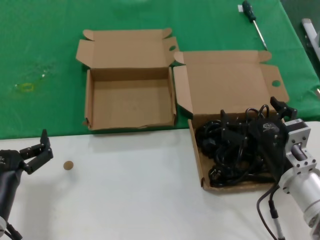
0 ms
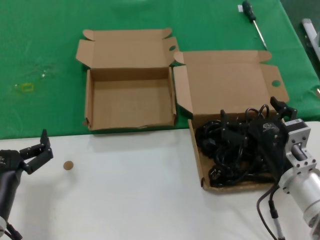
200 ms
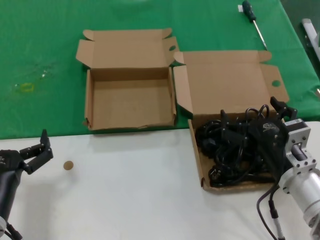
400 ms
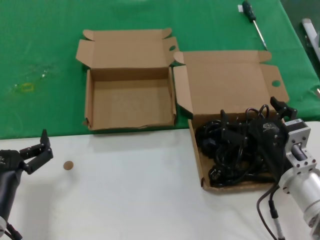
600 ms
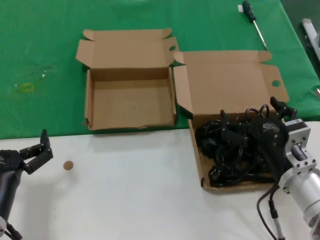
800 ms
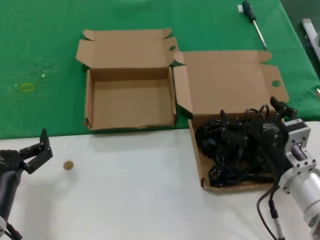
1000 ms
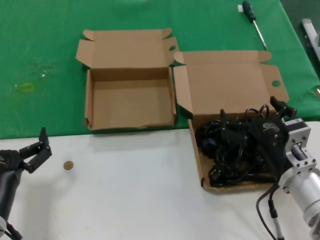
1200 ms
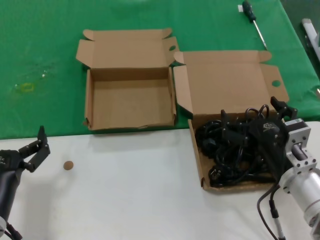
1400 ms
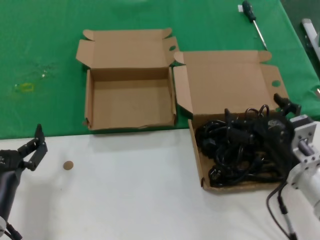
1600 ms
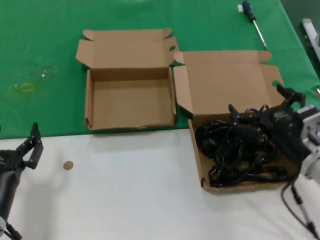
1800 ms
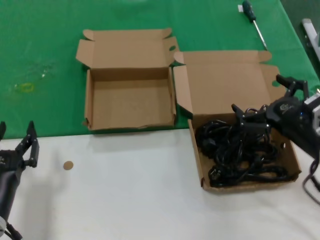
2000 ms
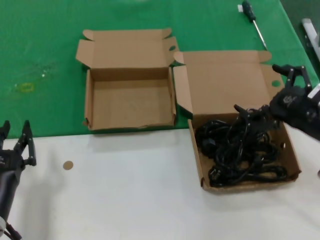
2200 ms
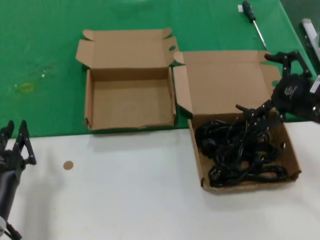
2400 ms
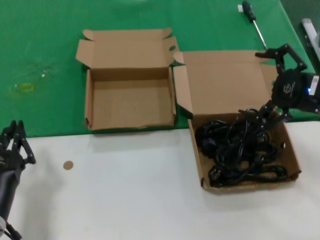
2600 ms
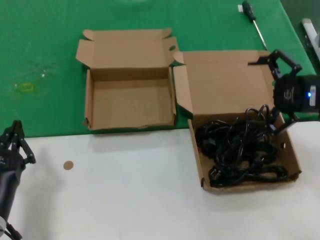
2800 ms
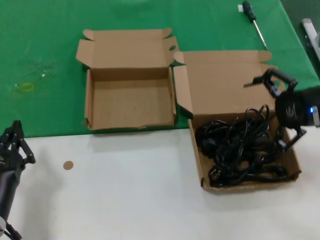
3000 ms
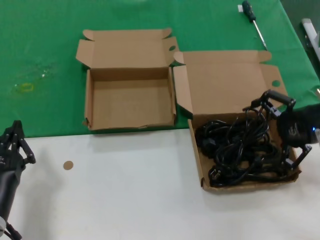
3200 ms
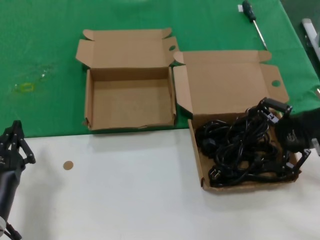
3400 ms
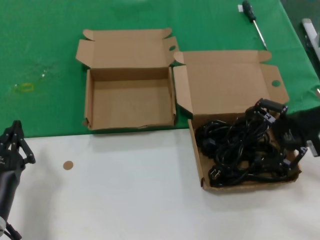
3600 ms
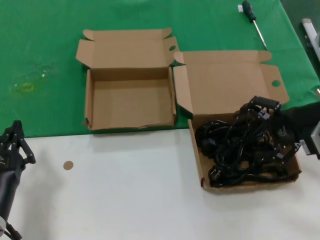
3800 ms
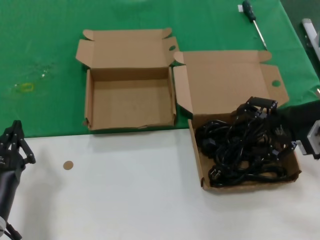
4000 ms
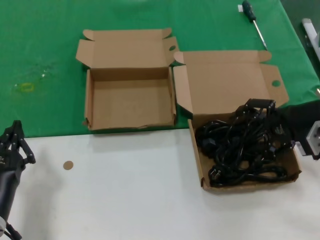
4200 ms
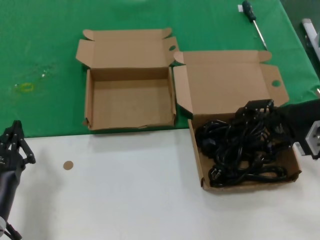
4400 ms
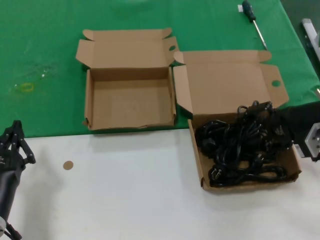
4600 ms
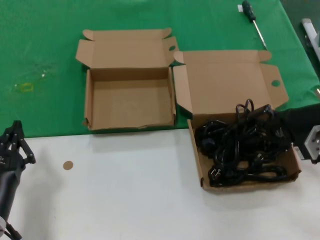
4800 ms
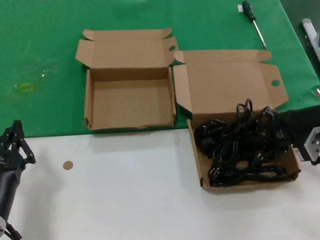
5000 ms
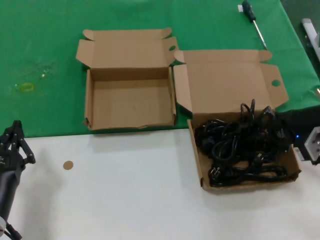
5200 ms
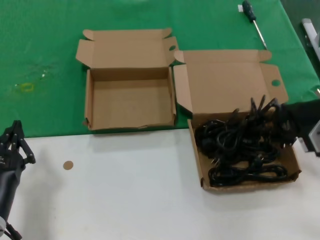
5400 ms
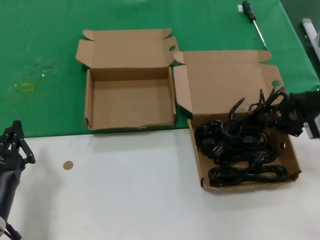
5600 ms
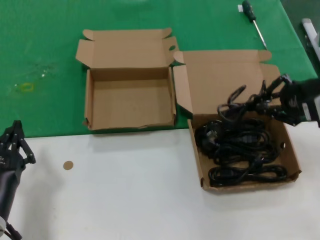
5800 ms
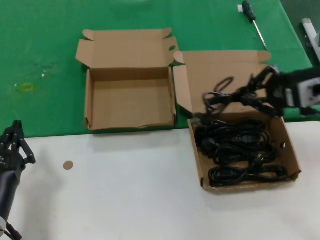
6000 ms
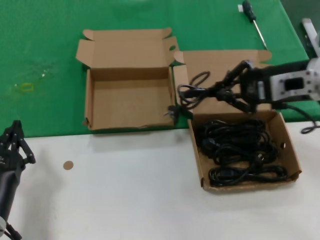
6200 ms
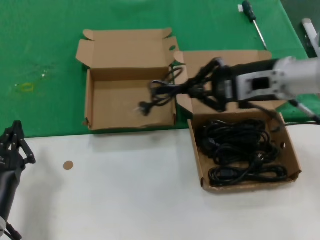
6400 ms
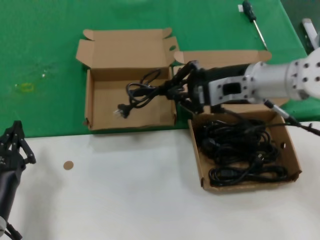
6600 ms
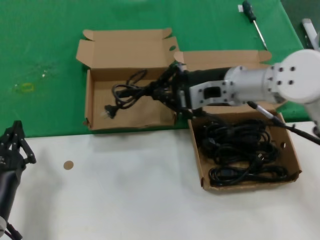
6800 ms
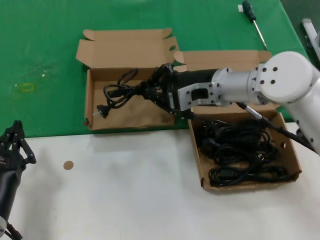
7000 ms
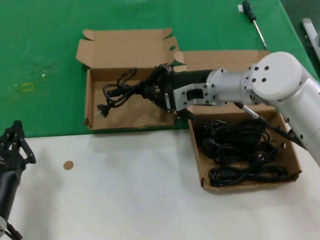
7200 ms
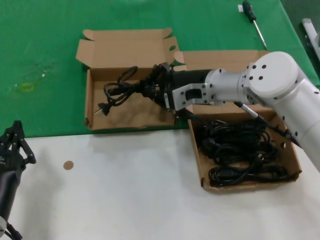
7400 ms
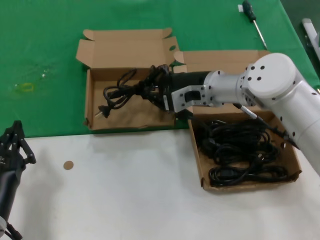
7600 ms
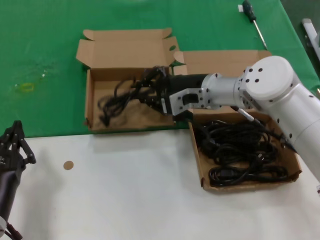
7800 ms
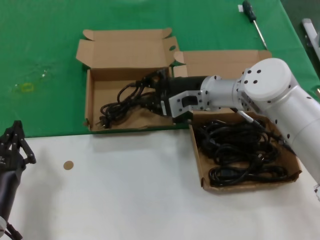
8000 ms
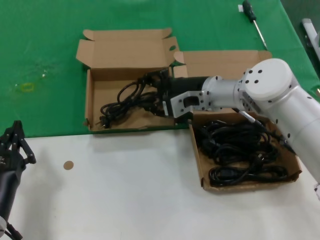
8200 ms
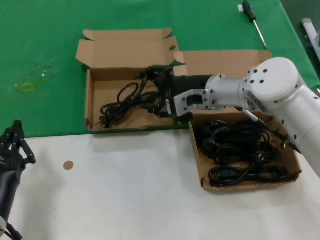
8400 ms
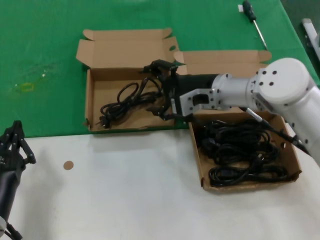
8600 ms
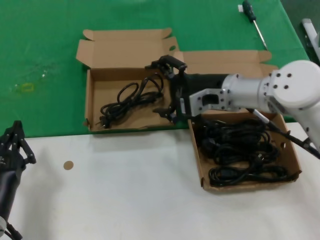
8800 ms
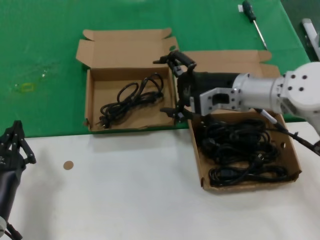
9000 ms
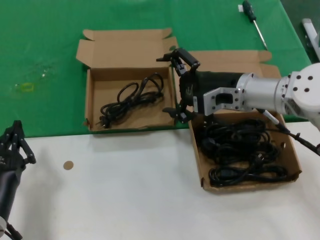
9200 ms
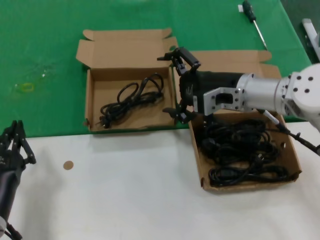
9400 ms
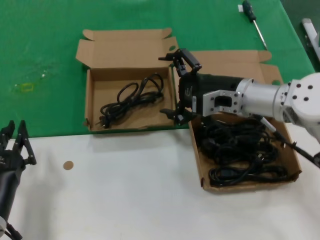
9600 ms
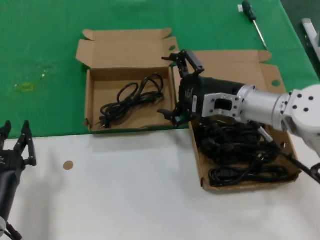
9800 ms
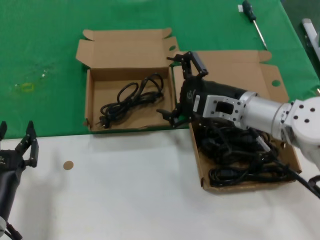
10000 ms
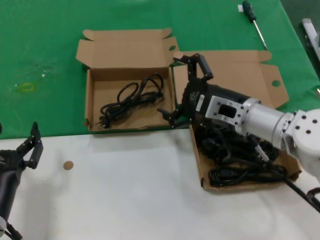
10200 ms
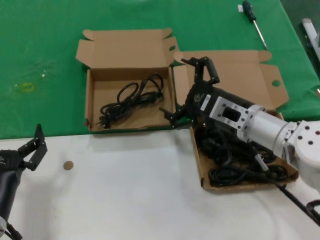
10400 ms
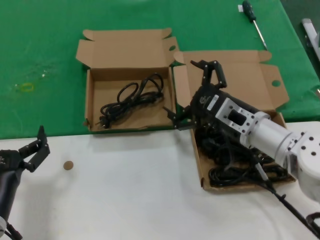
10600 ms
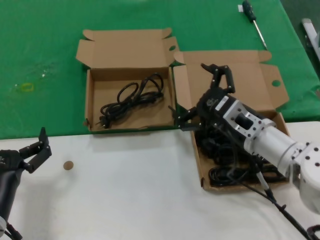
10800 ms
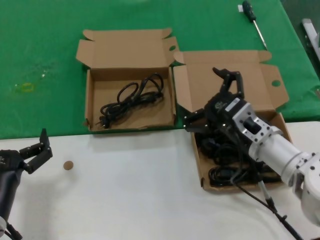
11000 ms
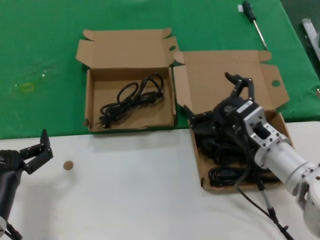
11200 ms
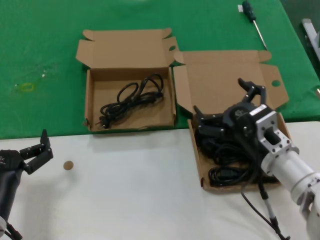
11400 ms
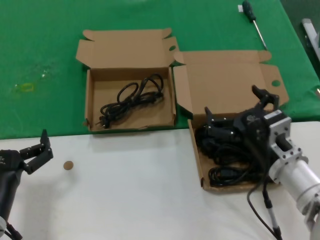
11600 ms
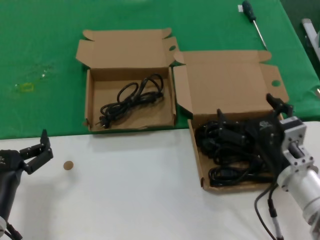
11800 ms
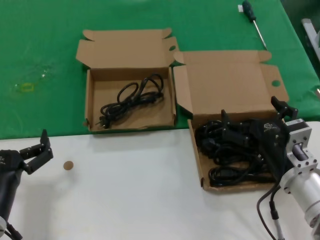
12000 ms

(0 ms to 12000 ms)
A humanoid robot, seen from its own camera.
Task of the whole recording: take the parts from the box containing them and put them into an empty box.
Step, 0 ms - 4800 ms: Grasp the data cable.
Step, 5200 ms - 8200 ms: Place the data cable in the another box.
0 ms - 1600 ms: Both hands stay about where they are.
1600 ms - 3000 ms: The right hand shifts approximately 25 cm upward, to the right and forward.
3000 ms - 4400 ms: The right hand moves approximately 5 cm.
4400 ms - 6000 ms: The right hand is displaced upward by roughly 5 cm.
6000 ms - 7600 ms: The right hand heads to the left and forward, covering approximately 20 cm.
7600 ms - 9000 ms: The right hand ends up roughly 5 cm from where it was.
9000 ms - 10400 ms: The right hand moves downward and backward, about 10 cm.
10400 ms - 12000 ms: The right hand is displaced backward and downward by some 15 cm.

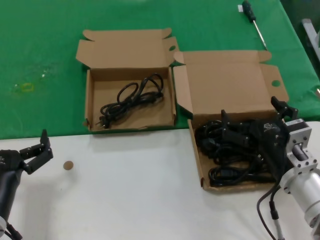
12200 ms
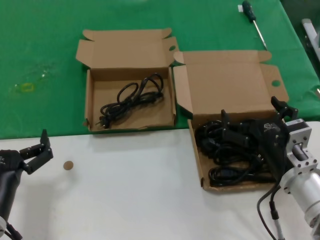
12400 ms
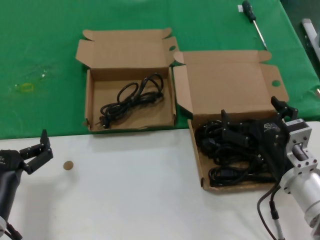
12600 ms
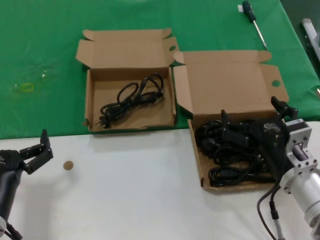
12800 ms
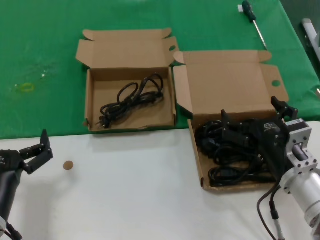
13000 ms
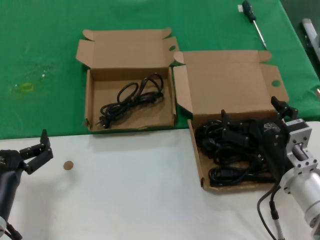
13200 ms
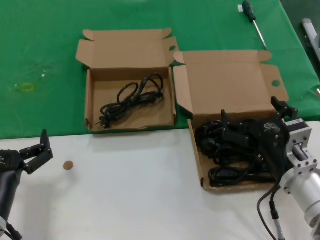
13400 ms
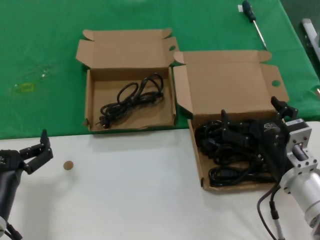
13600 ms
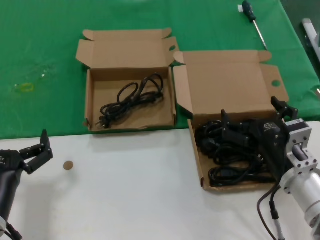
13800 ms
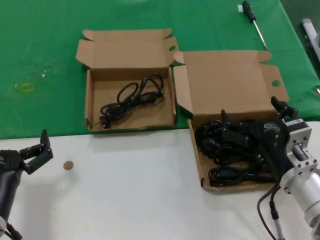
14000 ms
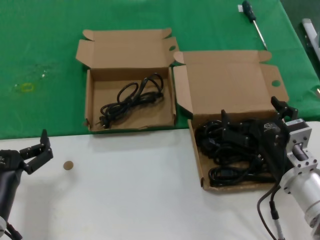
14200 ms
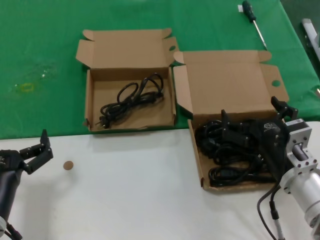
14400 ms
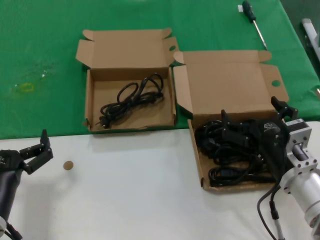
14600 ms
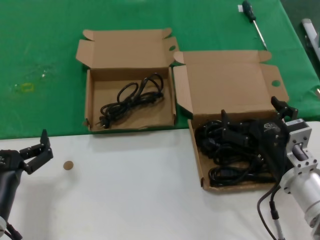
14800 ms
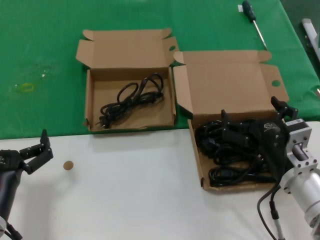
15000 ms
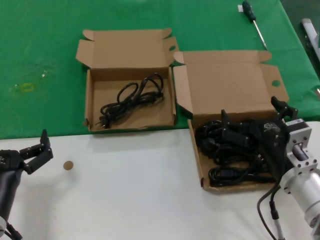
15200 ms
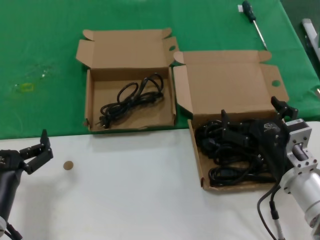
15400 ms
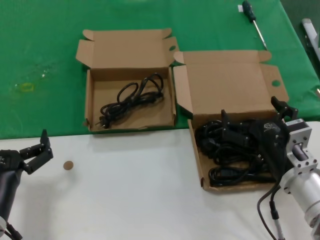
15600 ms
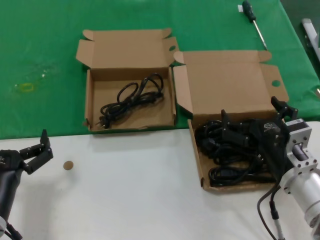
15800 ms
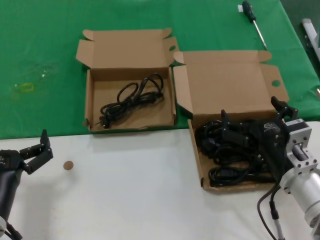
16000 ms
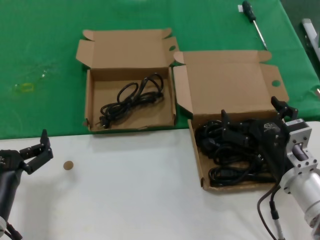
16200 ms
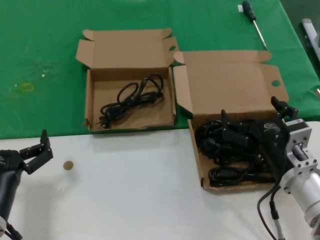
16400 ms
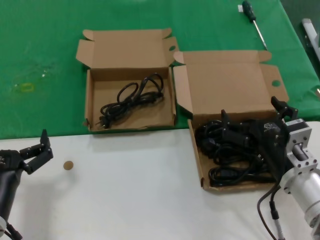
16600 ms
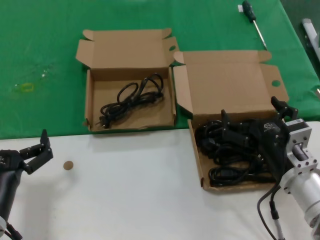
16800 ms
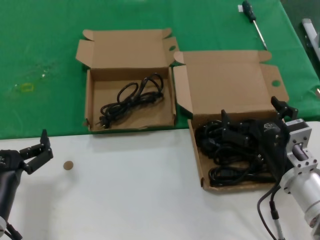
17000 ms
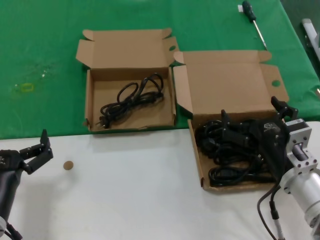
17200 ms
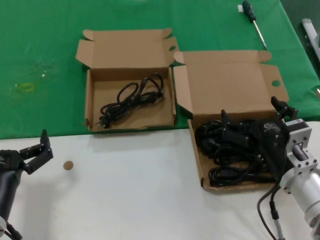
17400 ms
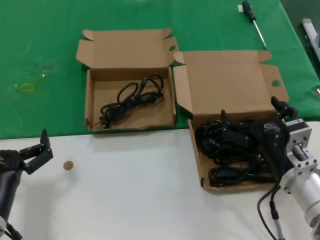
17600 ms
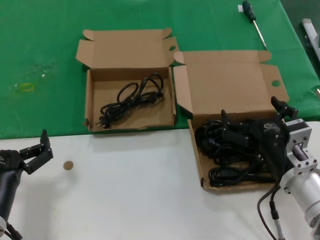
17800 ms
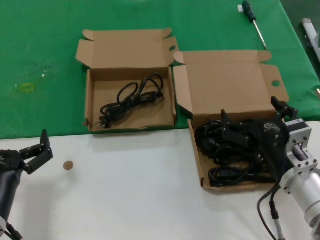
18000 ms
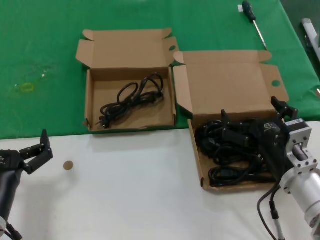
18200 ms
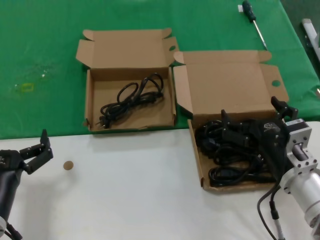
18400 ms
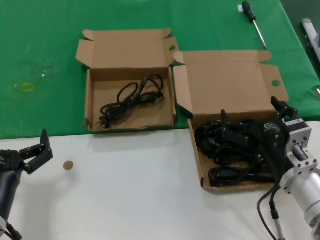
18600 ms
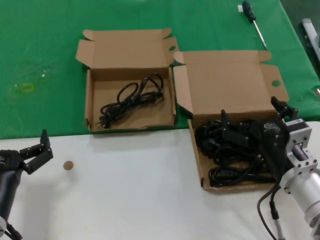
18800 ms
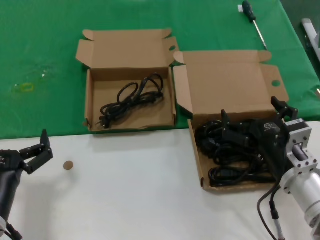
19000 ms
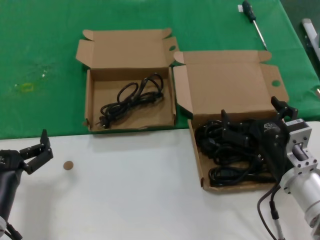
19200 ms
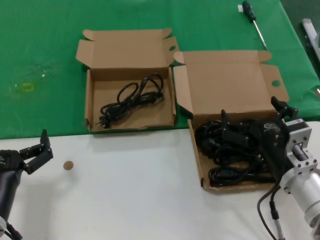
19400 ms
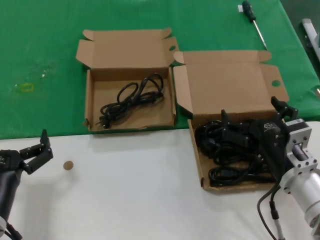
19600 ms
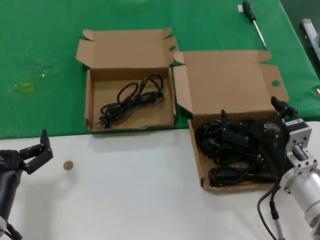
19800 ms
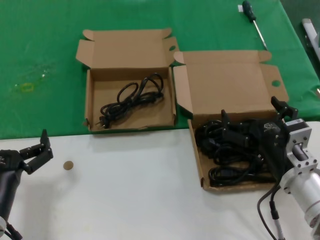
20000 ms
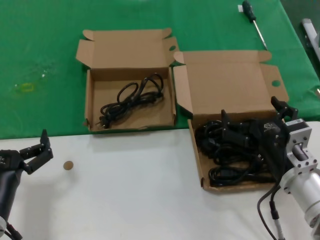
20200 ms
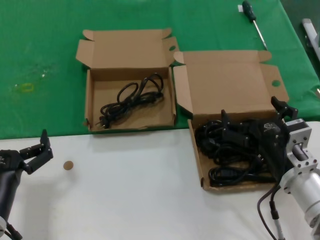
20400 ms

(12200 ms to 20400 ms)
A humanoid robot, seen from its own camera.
Task of the whole recording: take the parts from the box containing them and put them into an empty box.
12200 ms - 20400 ms: Both hands stay put.

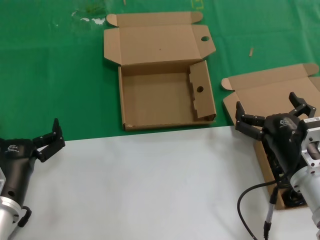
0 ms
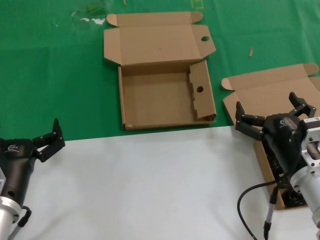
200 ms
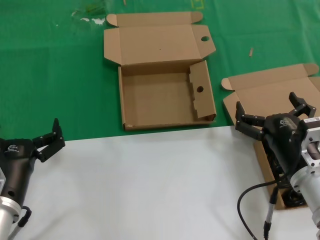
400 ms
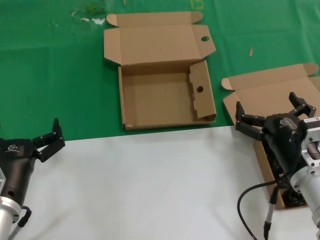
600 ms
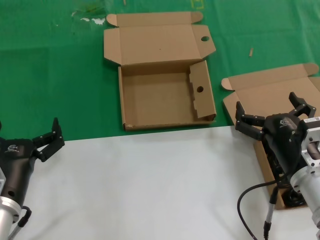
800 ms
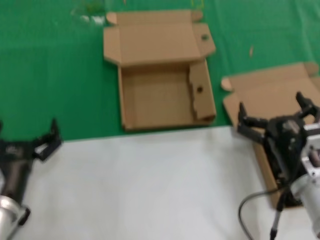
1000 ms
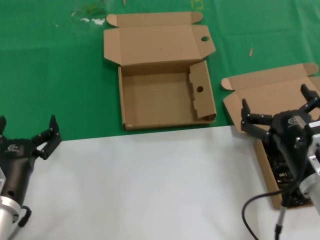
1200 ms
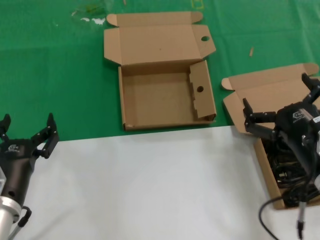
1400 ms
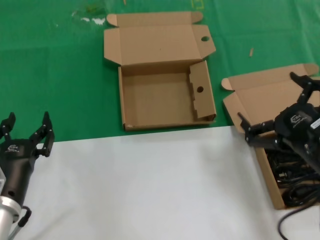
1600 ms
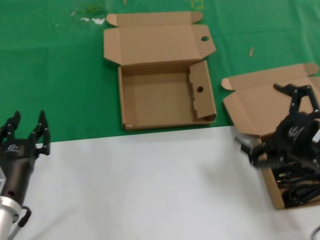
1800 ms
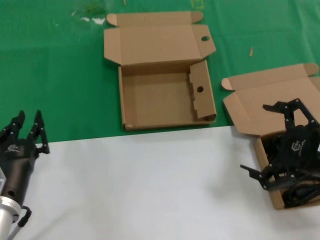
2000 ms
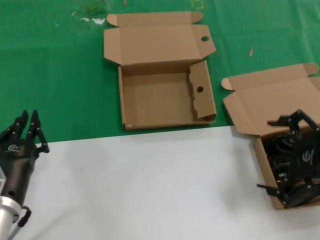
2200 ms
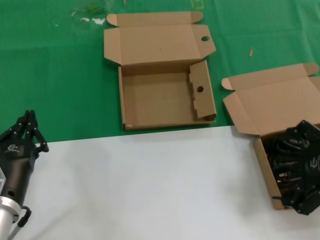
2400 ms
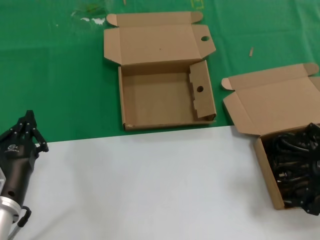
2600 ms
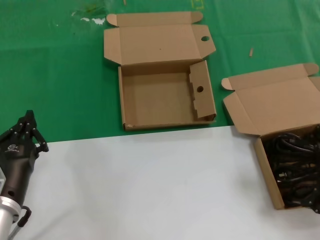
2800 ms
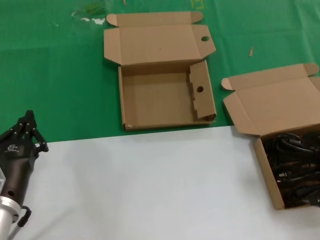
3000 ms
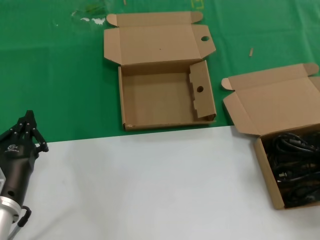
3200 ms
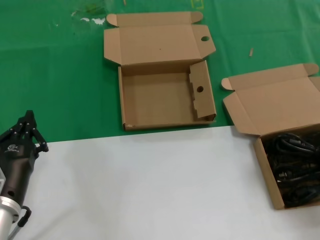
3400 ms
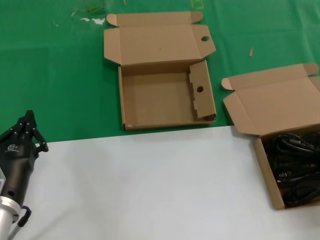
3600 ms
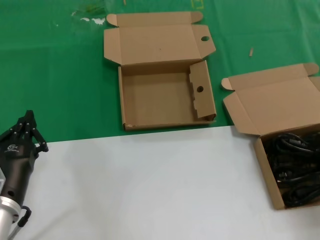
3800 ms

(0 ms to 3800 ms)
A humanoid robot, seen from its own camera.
Task of the whole recording: take the parts from the box containing them and put them into an empty box.
0 ms - 1200 ms: The hands make only small movements.
1200 ms - 2600 ms: The right hand shifts about 20 cm upward and to the right.
2600 ms - 3800 ms: The right hand shifts by roughly 5 cm.
